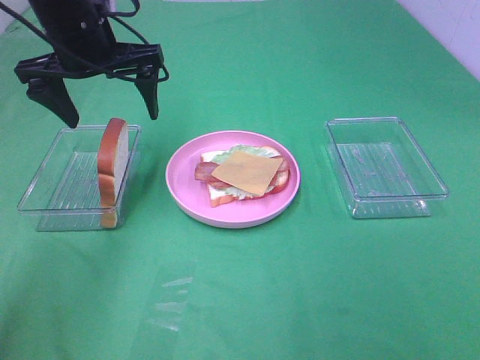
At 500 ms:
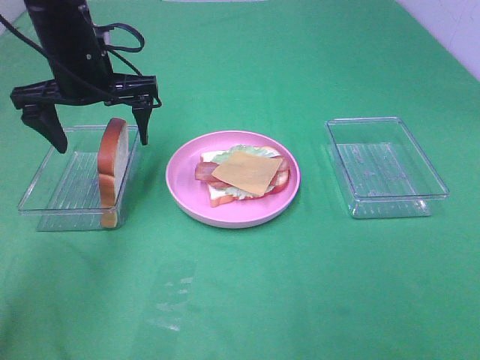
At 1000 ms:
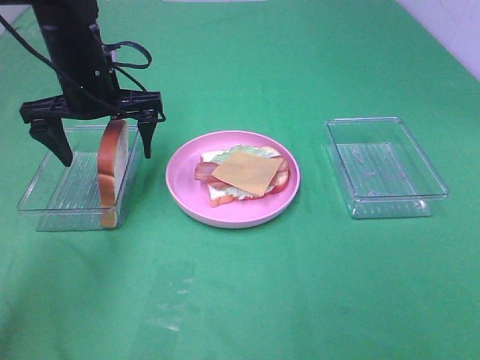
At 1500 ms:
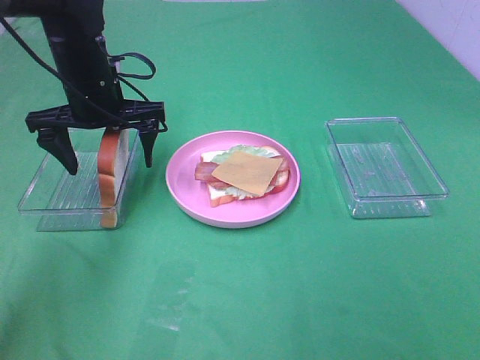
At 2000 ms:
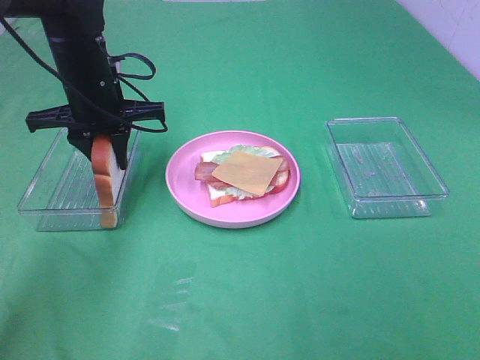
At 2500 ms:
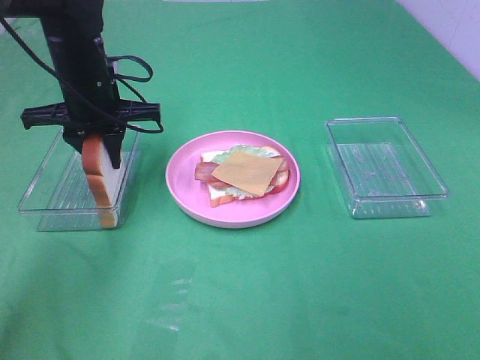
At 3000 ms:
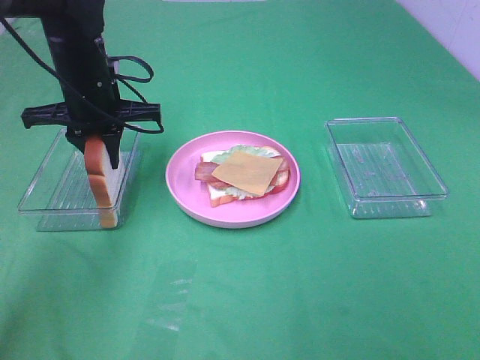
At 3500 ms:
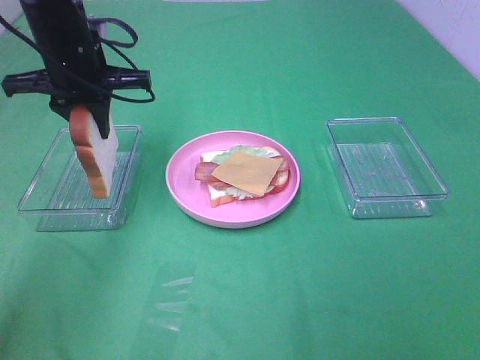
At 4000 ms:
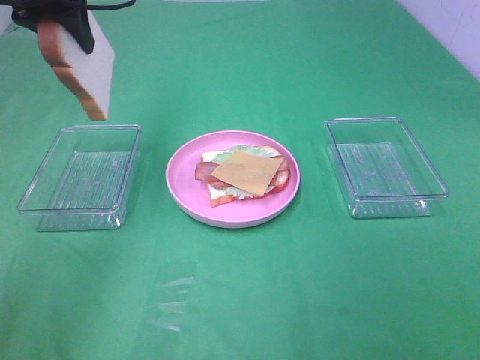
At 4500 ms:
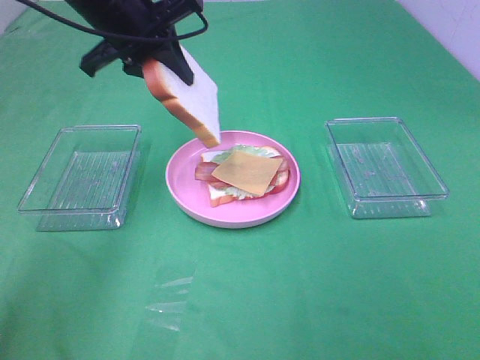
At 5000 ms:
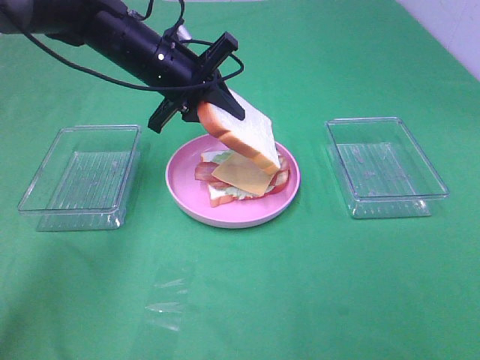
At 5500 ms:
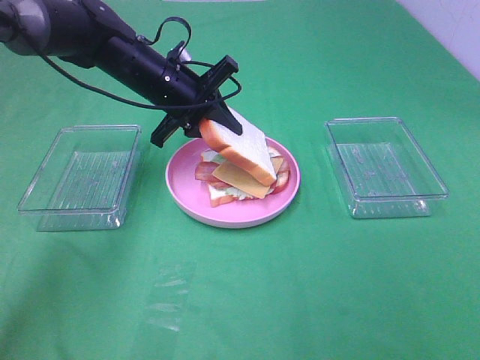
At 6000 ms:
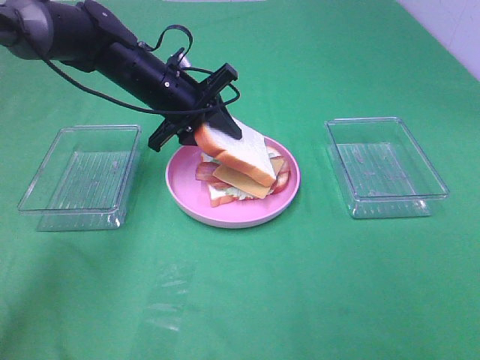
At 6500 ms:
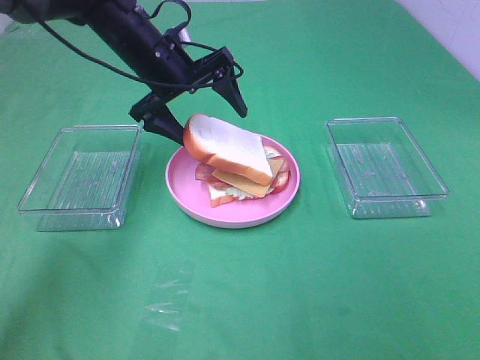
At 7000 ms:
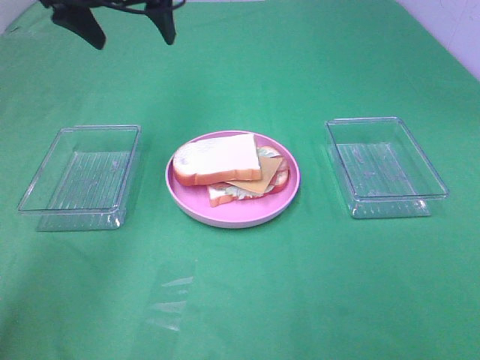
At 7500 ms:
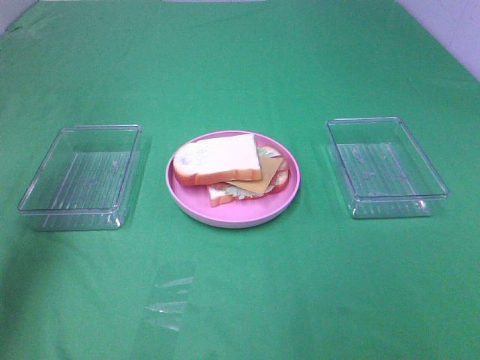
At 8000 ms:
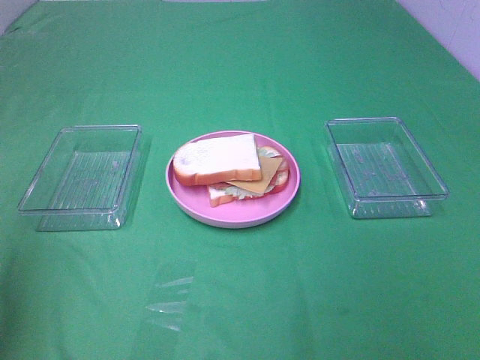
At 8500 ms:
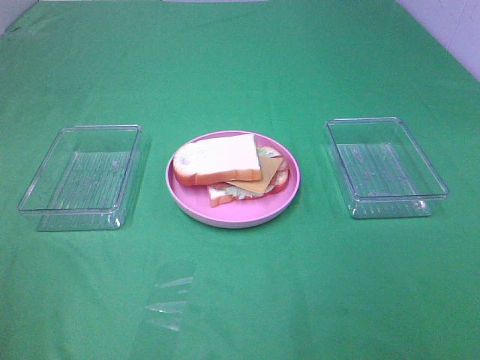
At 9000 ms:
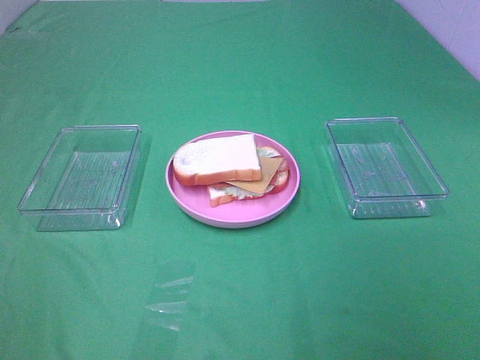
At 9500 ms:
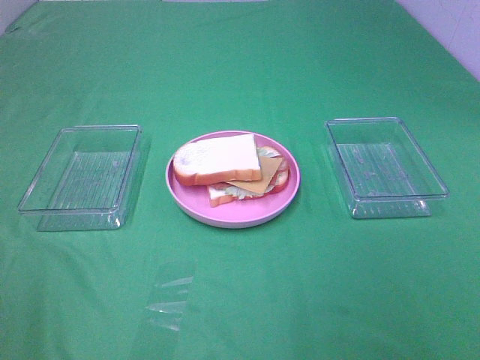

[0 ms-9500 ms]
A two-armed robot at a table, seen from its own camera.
Task of the whole recording: Make sandwiches.
Step, 0 ms to 2000 ms: Left hand:grab the bread slice.
Step, 2500 ms to 6500 ms: Left hand:place the bread slice on the cheese slice.
0 ms to 2000 ms: The left gripper shifts roughly 5 cm downward, and closes up.
2000 ms to 4000 ms: The left gripper moves upward, about 15 cm.
4000 ms to 5500 ms: The left gripper goes about 20 cm downward and to the right.
5500 ms to 7500 ms: The left gripper moves to the left, upward and backward, some 35 cm, and opens.
7500 ms to 9500 ms: The left gripper heads backward, covering some 30 cm.

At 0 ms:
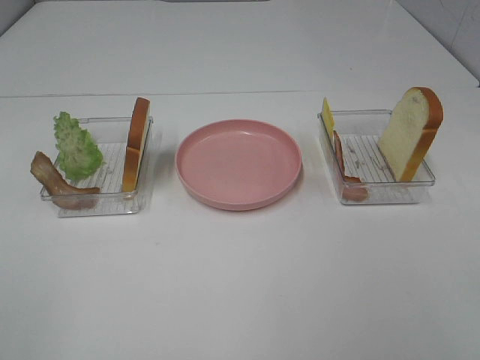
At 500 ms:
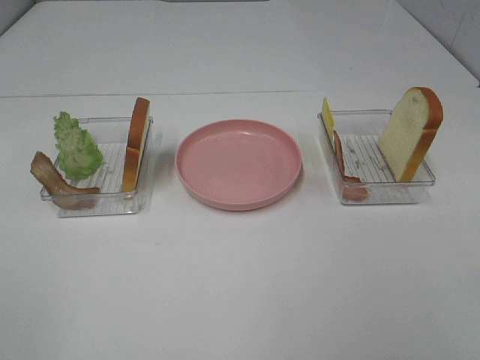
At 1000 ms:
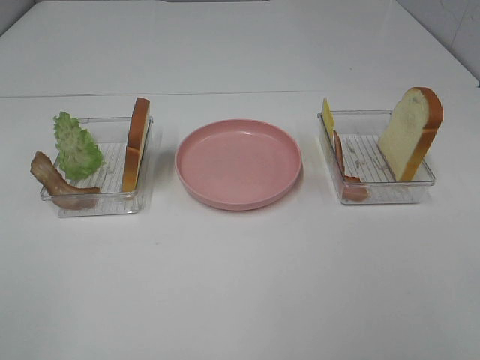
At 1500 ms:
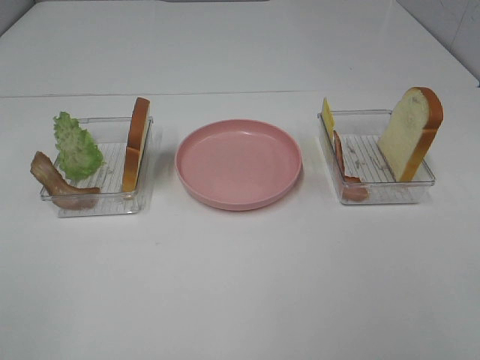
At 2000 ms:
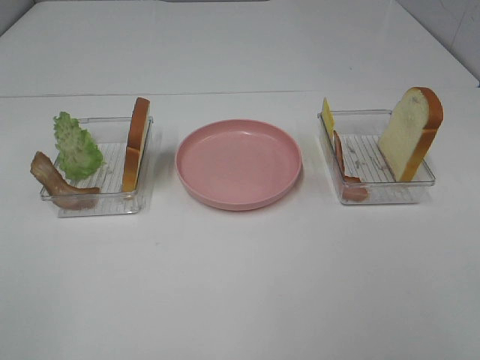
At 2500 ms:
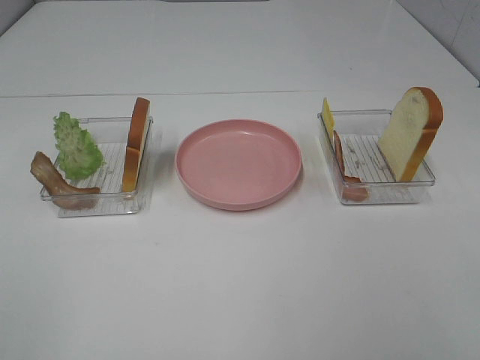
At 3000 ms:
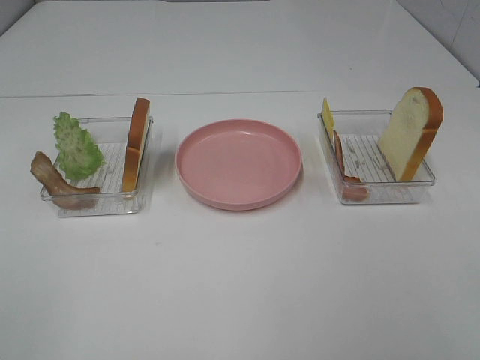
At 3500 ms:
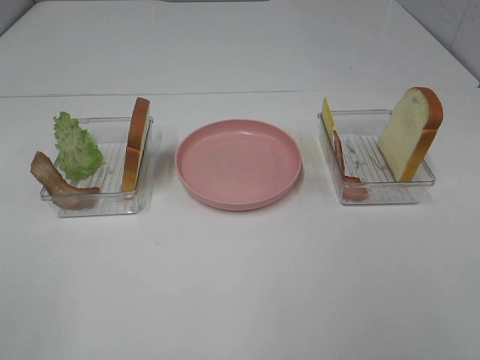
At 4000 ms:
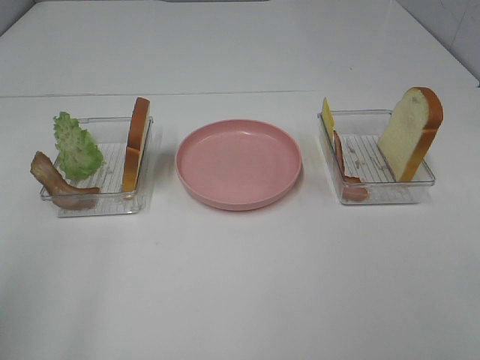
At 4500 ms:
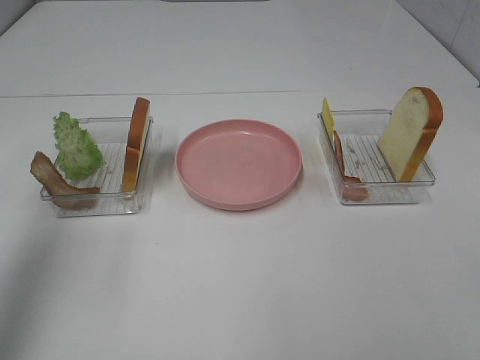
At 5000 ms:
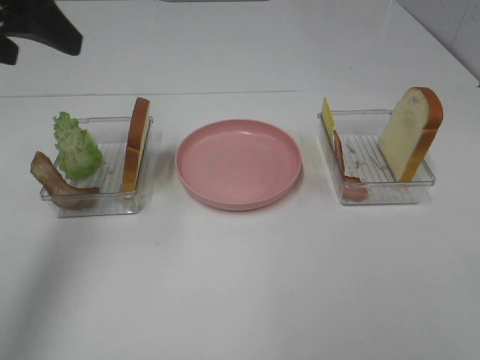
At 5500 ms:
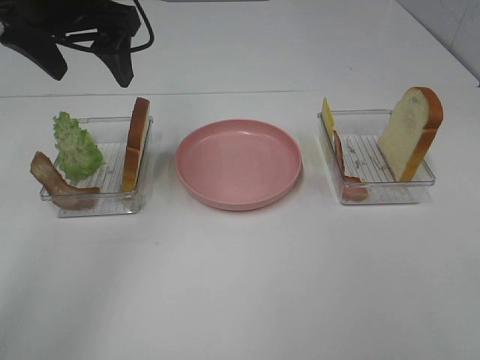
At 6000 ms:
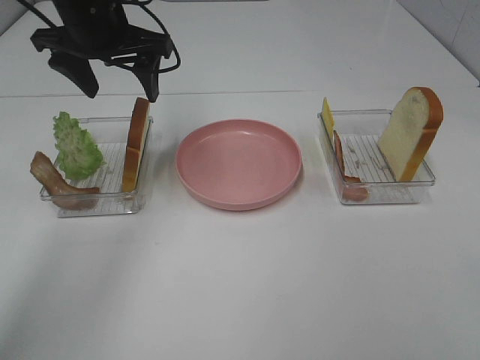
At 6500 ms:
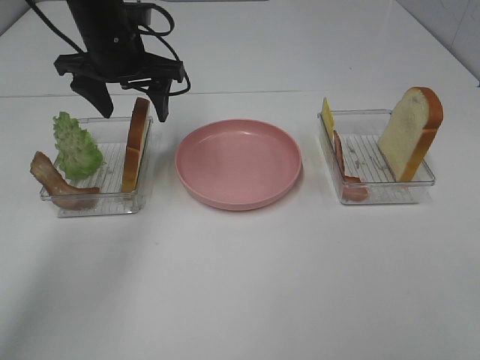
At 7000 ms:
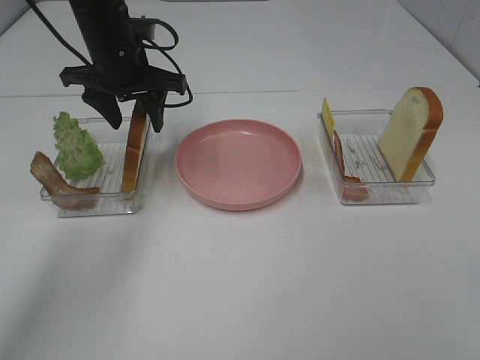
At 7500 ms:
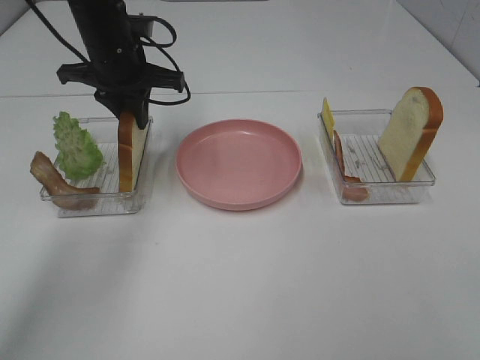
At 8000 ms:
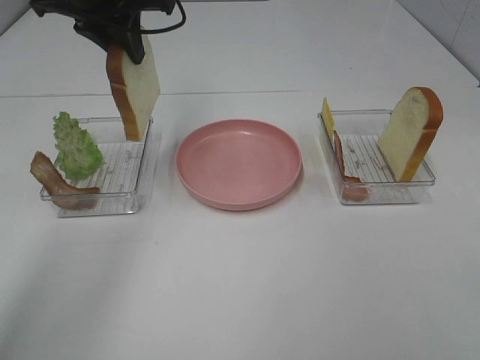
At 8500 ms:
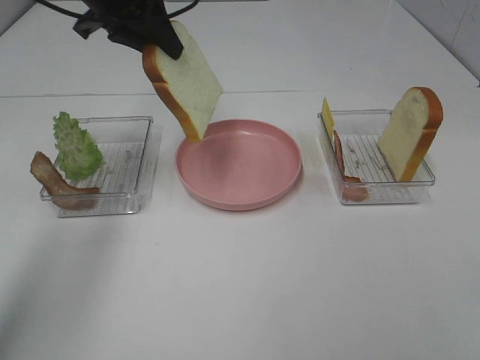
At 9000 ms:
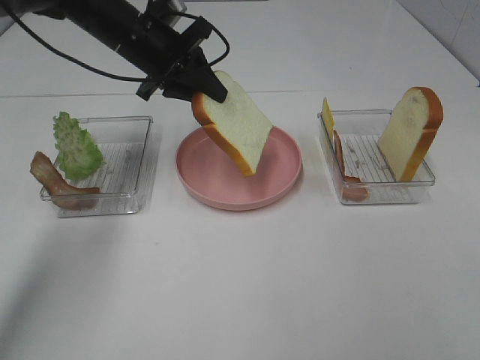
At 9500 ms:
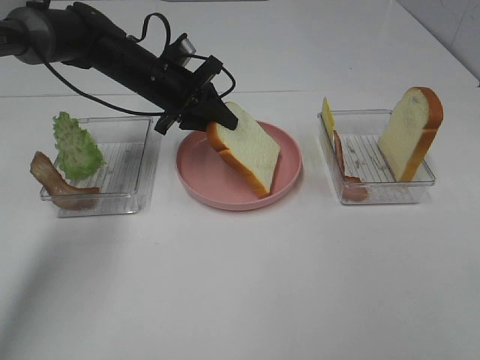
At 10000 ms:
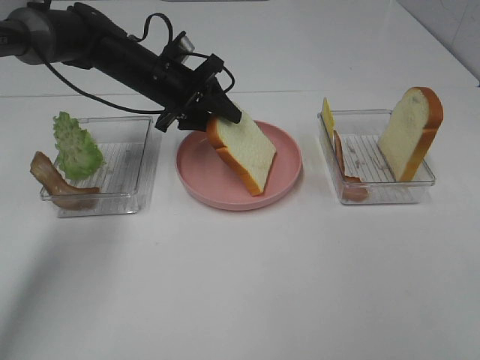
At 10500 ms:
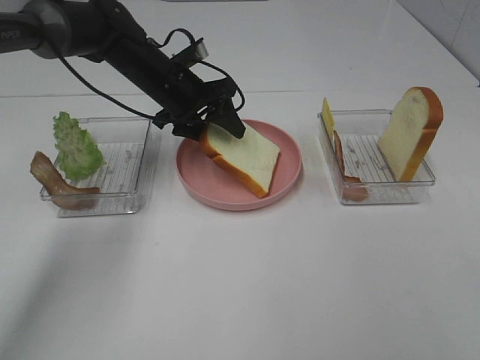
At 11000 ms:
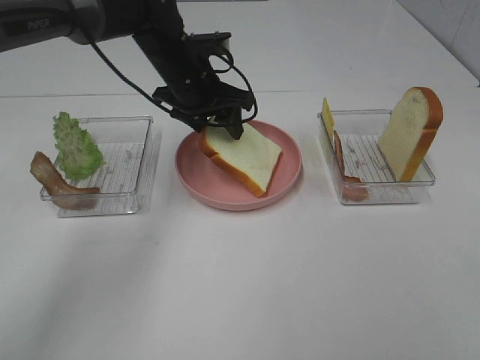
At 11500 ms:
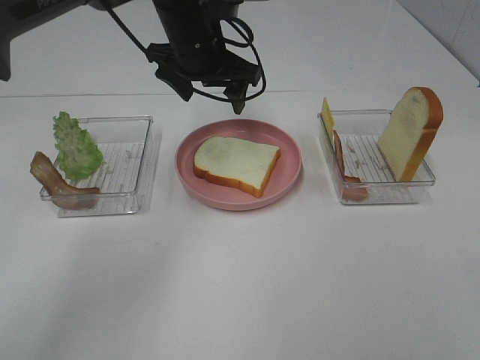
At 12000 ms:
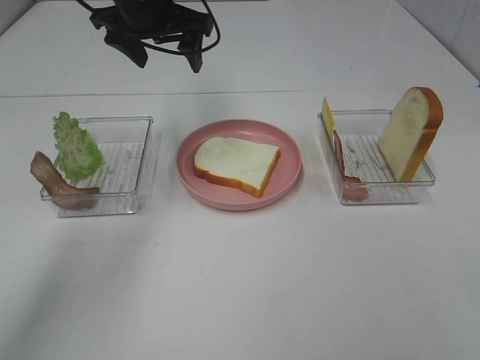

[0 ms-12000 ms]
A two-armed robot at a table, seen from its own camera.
Task of the whole recording: Make sandwiches.
Step, 0 ms to 7500 ms: Left hand:grab the bread slice.
Step, 8000 ms to 11500 ms: Left hand:place the bread slice on the plate.
0 ms to 2000 ms: The two grippers keep their place.
4000 ms to 6000 ms: The left gripper shifts approximately 35 cm forward.
6000 ms to 8000 ms: The left gripper closes its fingers.
8000 ms to 10000 ms: The left gripper heads downward, covering roughly 15 cm.
10000 ms to 12000 ms: The left gripper travels upward by about 10 cm, and opens up.

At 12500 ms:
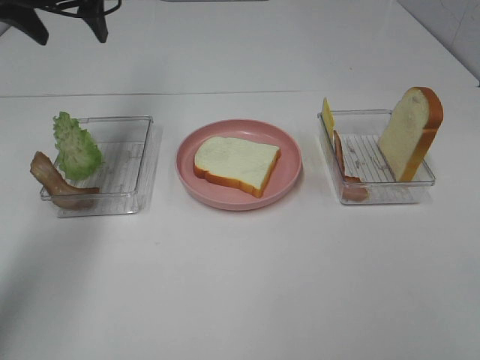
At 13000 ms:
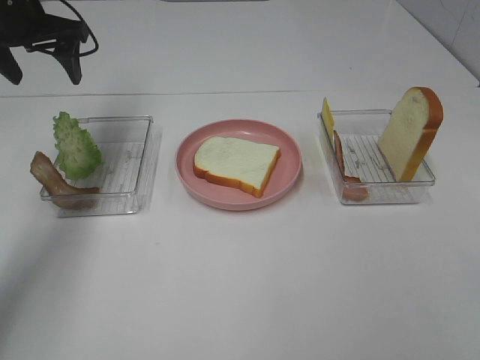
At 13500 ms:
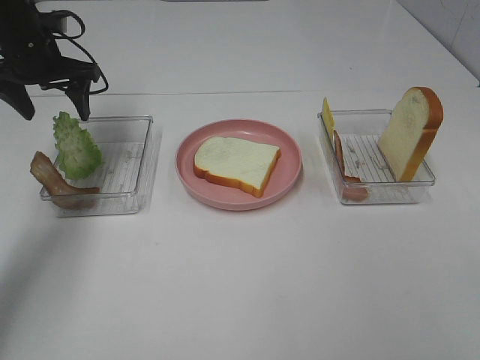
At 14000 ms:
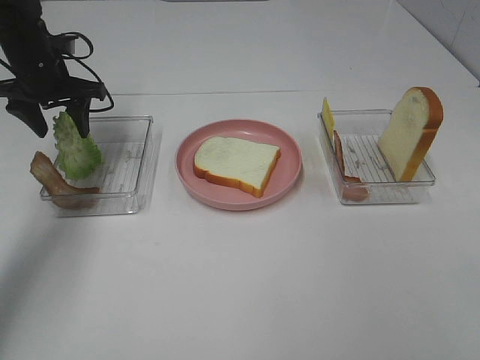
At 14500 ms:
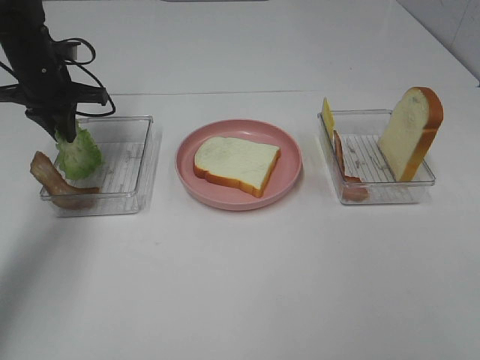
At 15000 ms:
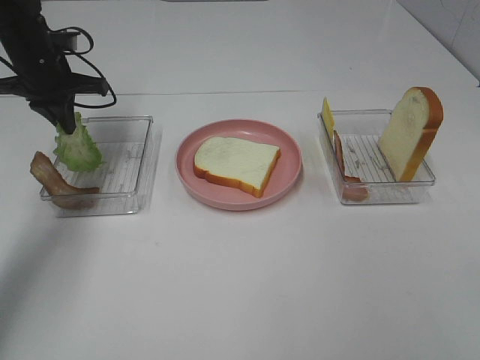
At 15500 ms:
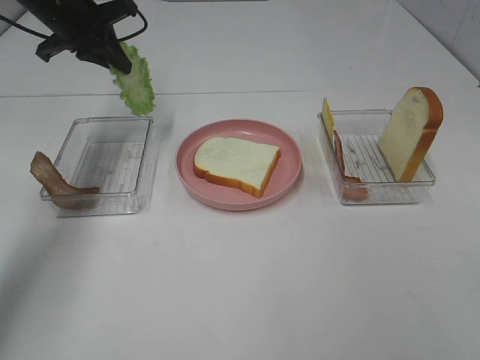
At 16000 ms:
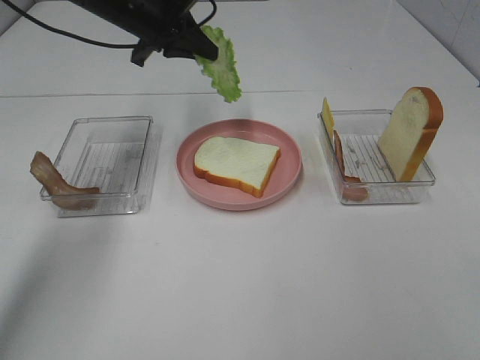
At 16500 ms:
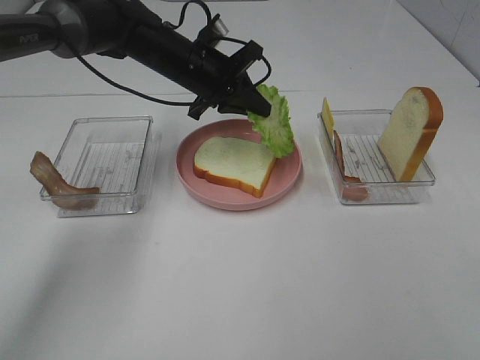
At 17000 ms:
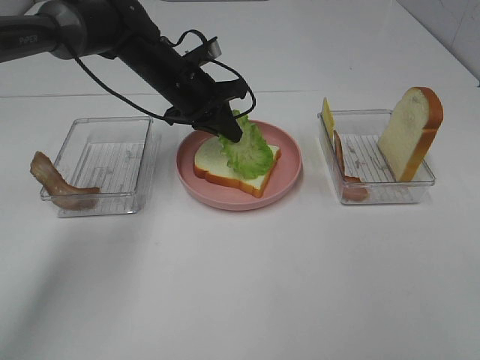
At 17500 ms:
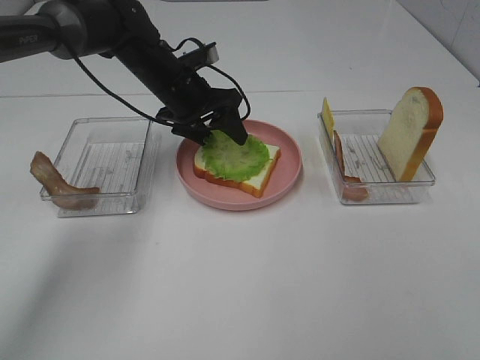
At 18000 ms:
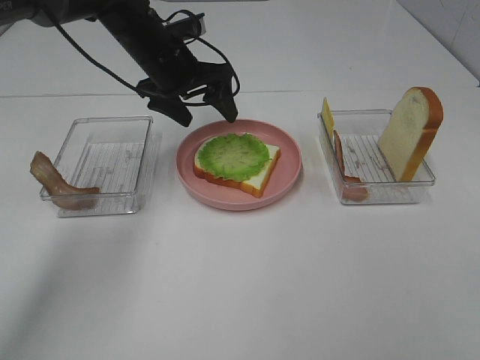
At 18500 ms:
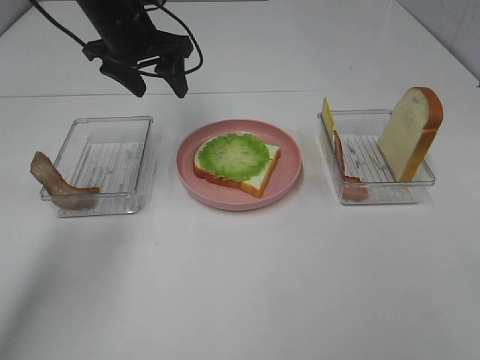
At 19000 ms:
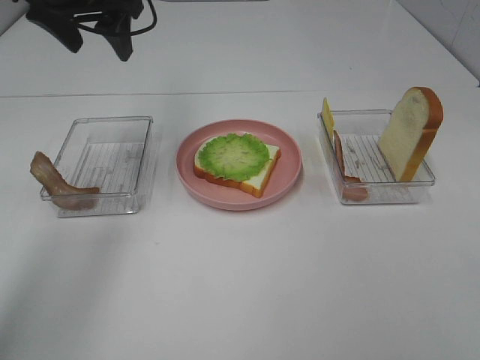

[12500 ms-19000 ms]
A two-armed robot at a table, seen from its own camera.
Task of the whole recording: Make sandwiches.
Step, 12500 ms to 14500 ms: Left hand:grab the lettuce slice.
Step, 15000 ms to 18000 ms: Left hand:place the lettuce slice on the bread slice.
12500 ms to 14500 ms: The left gripper goes approximately 15 cm downward, and closes its fingers.
14500 ms to 17000 ms: The left gripper shifts some 20 cm to the right.
17000 ms to 19000 ms: The left gripper shifts about 20 cm upward and to the left, and opens up.
